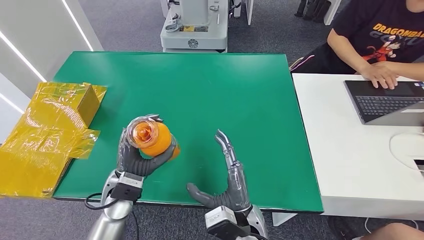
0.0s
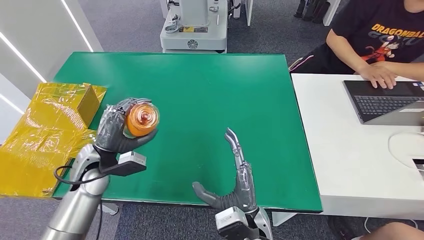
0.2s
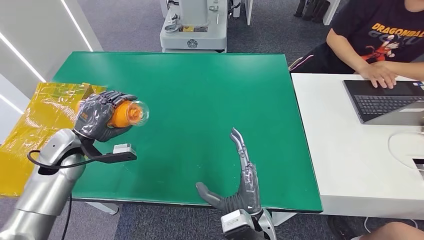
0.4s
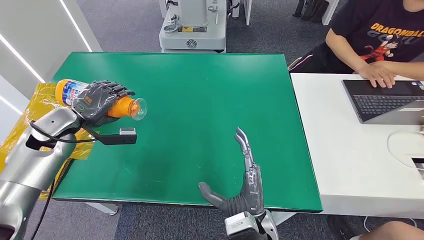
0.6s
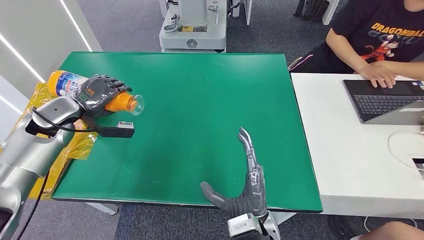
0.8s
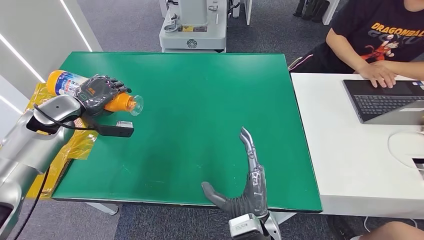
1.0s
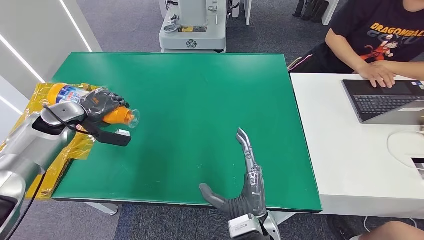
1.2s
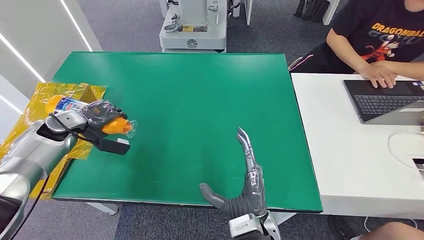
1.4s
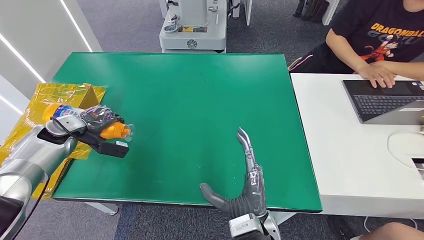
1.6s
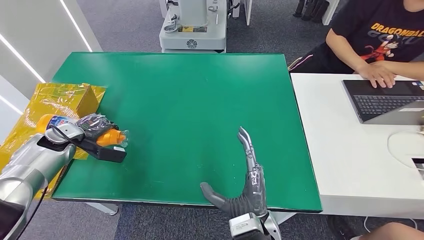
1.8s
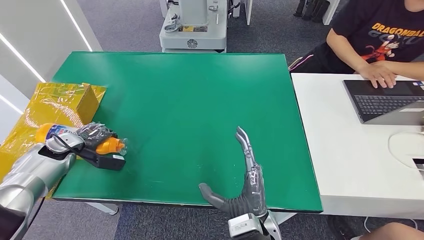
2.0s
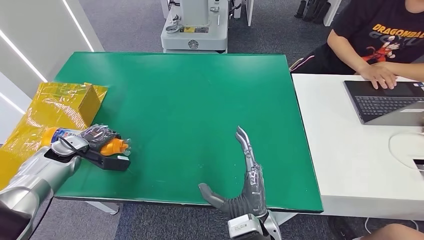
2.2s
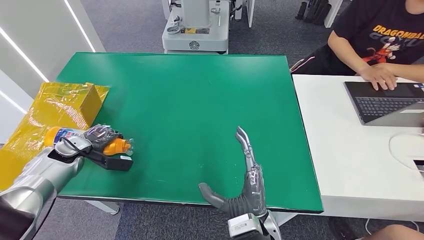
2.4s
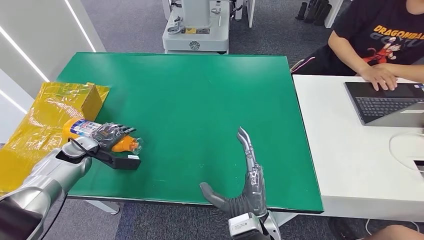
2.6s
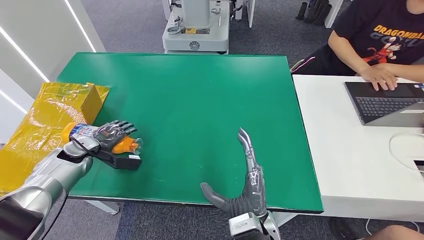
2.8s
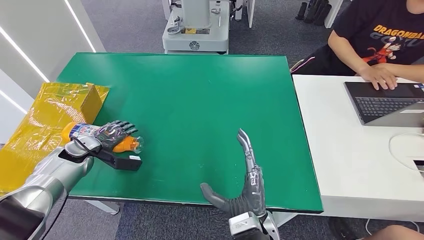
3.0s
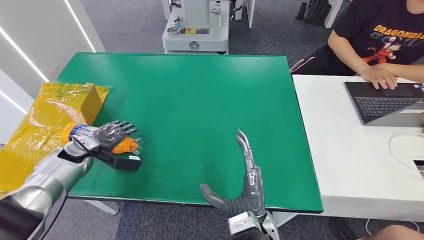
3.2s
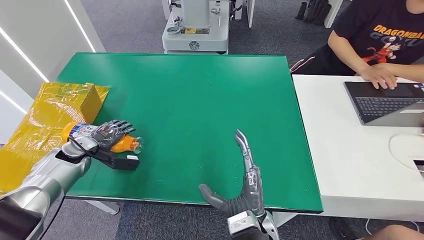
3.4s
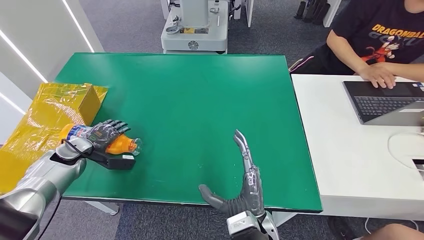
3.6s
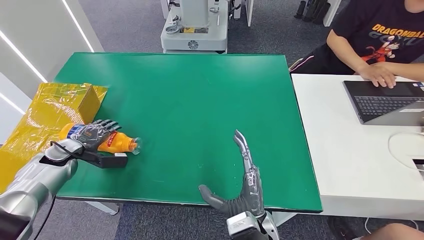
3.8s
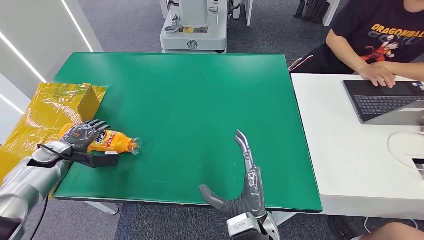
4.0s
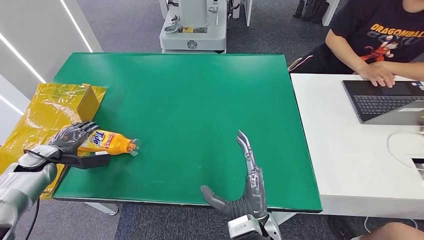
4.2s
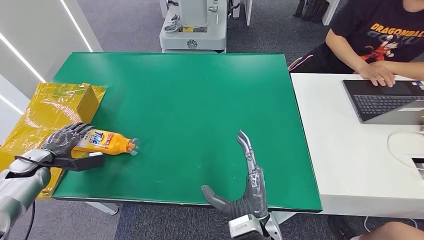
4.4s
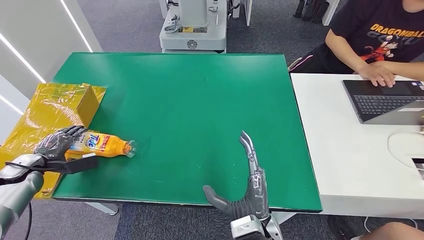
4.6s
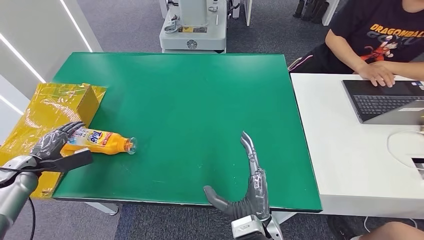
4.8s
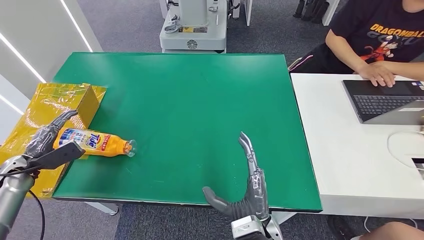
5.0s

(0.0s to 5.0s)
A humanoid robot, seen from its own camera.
Step, 0.0s - 5.0s: Turn the bottle to the front side.
0.0s - 1.6s: The left hand is displaced to the left and forward by some 25 cm.
1.6s - 3.4s: The left hand goes some 5 cm downward.
3.4s - 5.0s: The left hand is displaced to the left and backward by approximately 15 cm.
